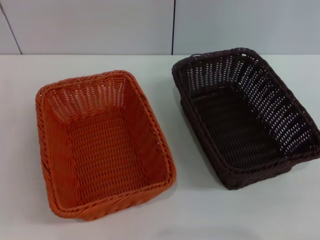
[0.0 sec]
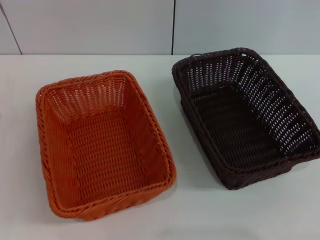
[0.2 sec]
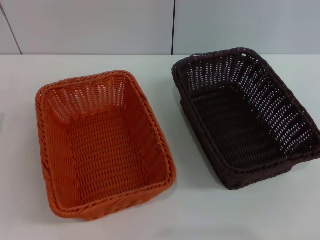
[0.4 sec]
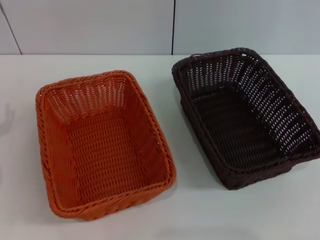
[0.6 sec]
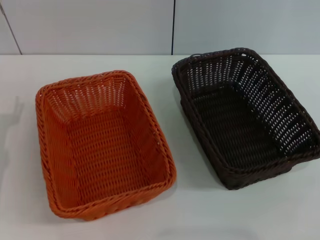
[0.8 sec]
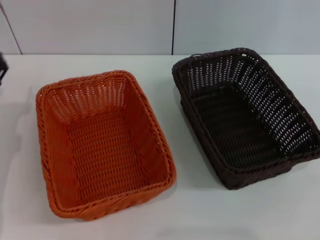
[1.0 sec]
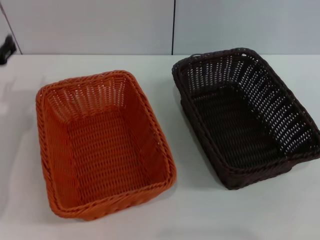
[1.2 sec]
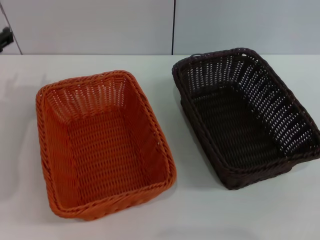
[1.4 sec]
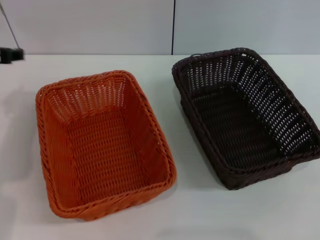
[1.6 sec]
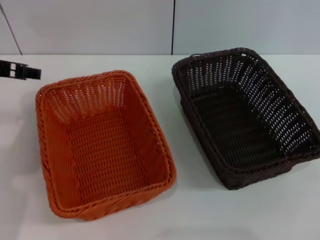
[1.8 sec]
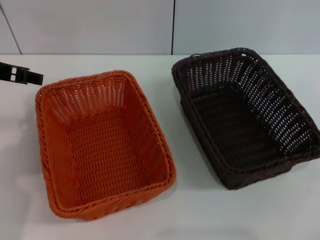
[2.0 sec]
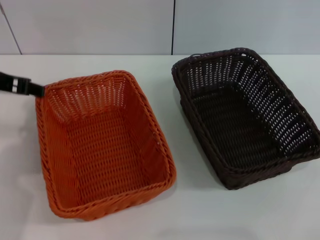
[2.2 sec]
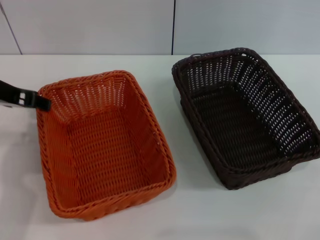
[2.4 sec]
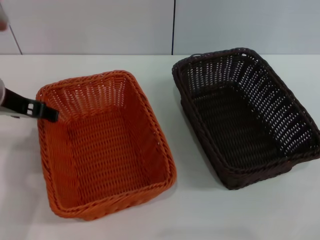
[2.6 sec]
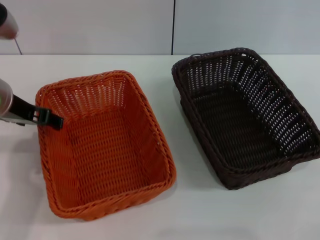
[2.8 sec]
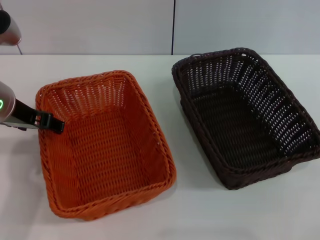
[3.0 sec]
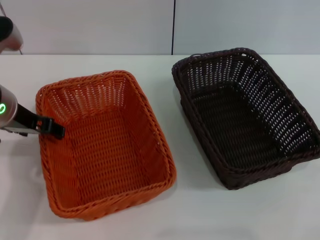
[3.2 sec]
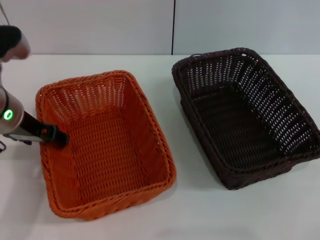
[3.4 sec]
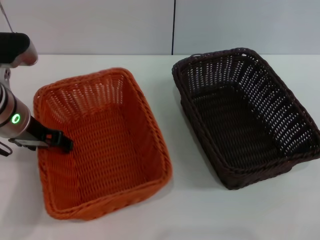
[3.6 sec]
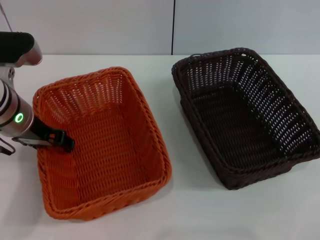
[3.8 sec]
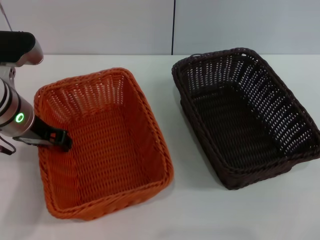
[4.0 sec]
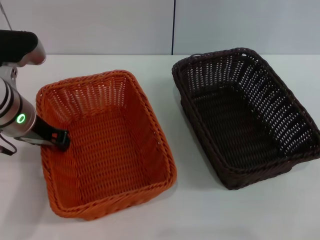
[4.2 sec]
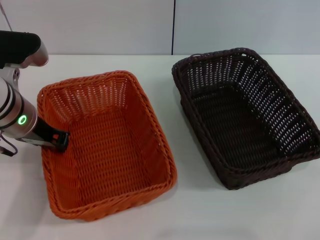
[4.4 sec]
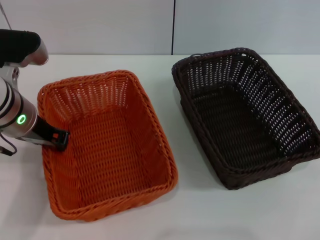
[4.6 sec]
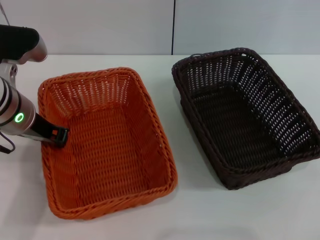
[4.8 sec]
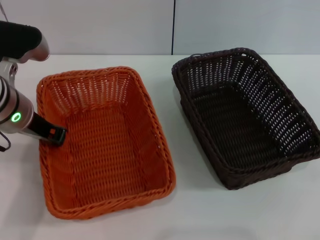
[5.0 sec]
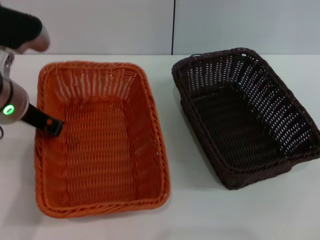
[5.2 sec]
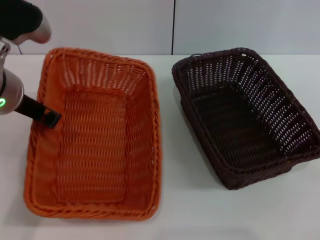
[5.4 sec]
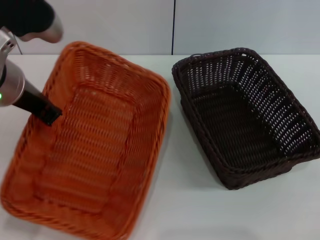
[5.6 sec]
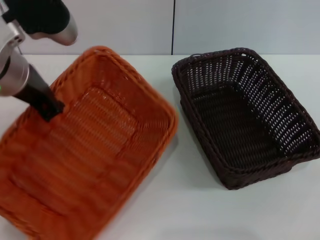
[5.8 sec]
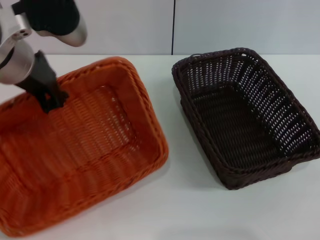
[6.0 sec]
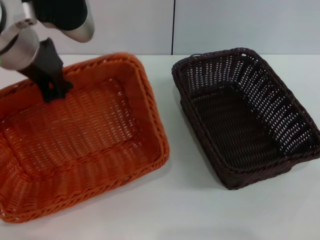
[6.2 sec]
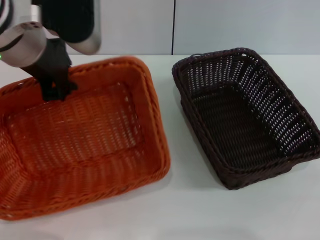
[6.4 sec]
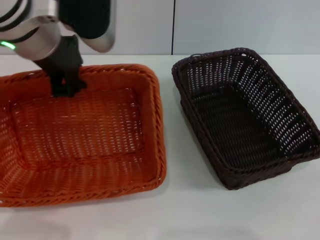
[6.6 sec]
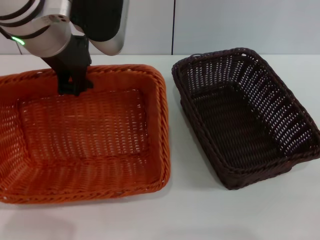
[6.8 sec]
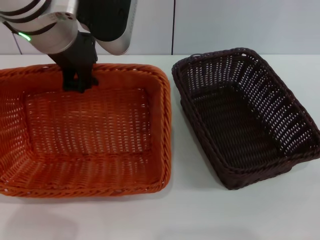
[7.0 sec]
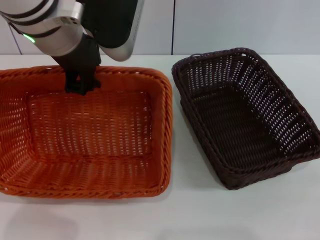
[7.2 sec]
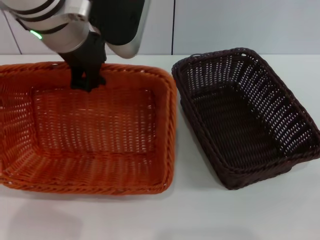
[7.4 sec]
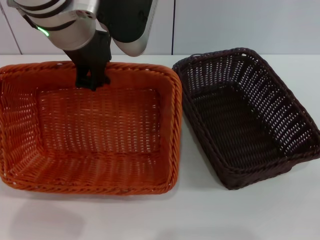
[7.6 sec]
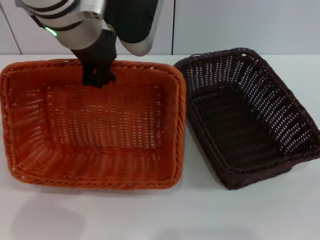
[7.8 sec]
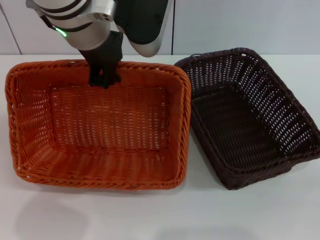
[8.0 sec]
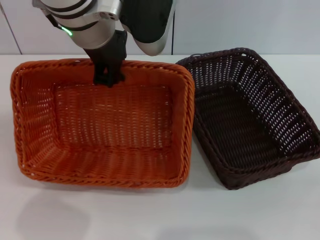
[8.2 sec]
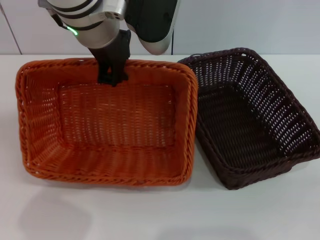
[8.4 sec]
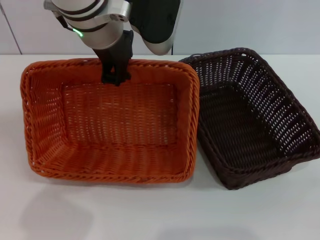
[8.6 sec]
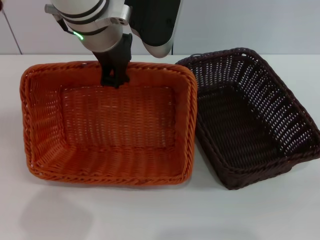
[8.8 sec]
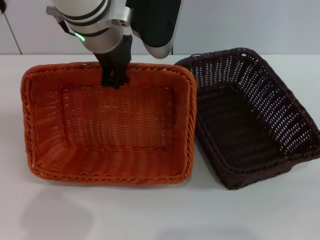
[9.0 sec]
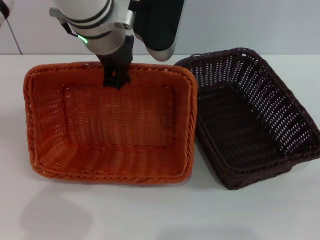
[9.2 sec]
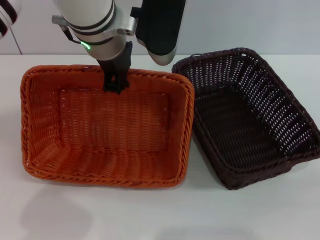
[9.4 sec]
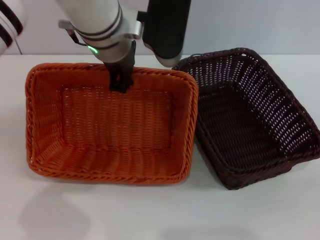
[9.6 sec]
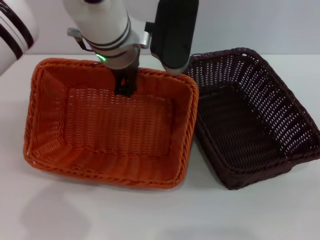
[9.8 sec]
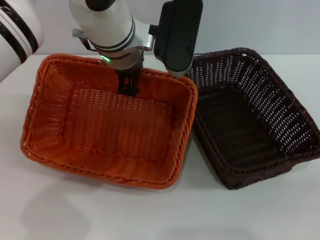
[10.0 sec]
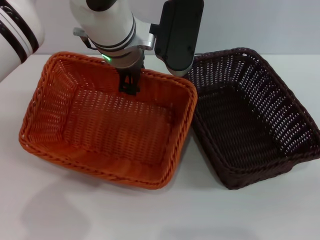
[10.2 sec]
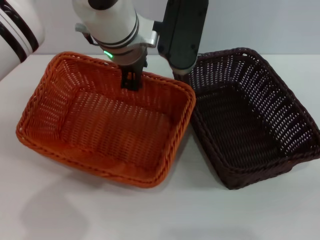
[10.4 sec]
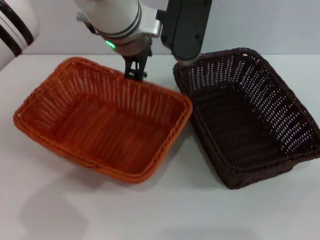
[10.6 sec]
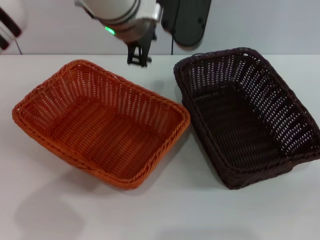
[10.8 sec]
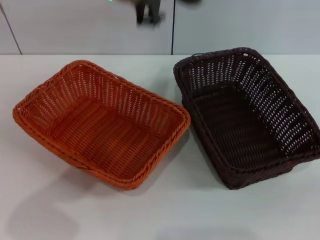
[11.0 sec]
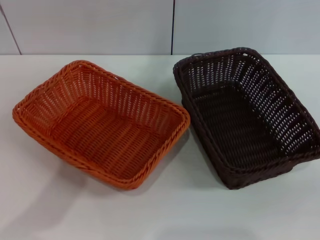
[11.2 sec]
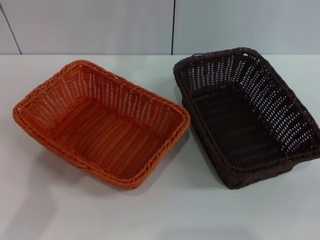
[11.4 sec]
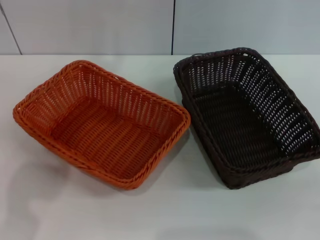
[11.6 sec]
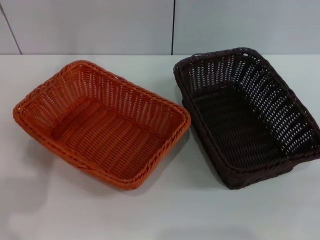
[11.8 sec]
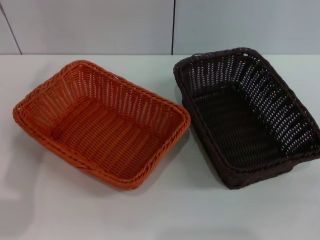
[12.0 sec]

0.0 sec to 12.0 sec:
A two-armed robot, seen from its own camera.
Step, 0.0 sec to 5.8 sec: Pick up the light basket with the left gripper.
Step, 6.2 sec to 10.6 sec: Place the light basket in the center of view with the left gripper.
1.6 sec to 3.0 sec: The left gripper is displaced to the right by approximately 5 cm.
3.0 sec to 4.4 sec: The left gripper closes.
4.4 sec to 6.0 sec: The left gripper travels upward by roughly 10 cm, and closes.
6.0 sec to 7.6 sec: The left gripper moves to the right, roughly 5 cm.
9.0 sec to 10.4 sec: The left gripper opens.
10.4 sec to 12.0 sec: The left gripper moves to the left and backward, approximately 20 cm.

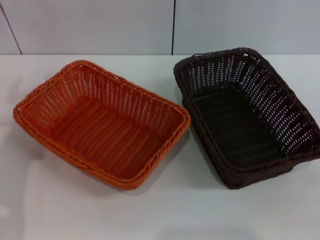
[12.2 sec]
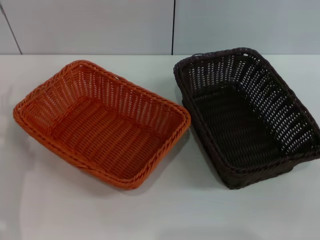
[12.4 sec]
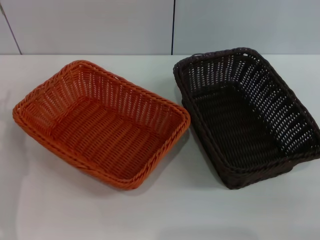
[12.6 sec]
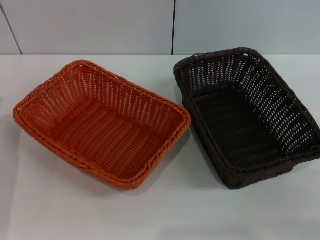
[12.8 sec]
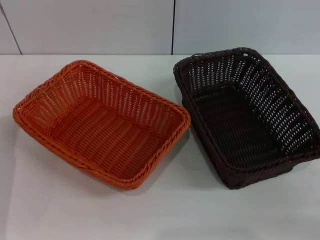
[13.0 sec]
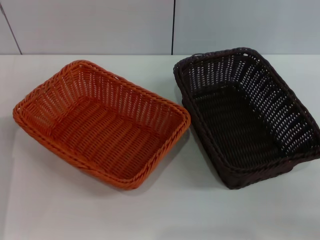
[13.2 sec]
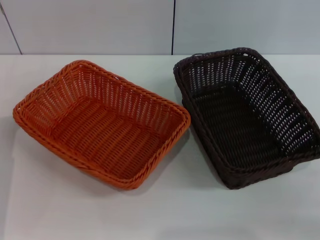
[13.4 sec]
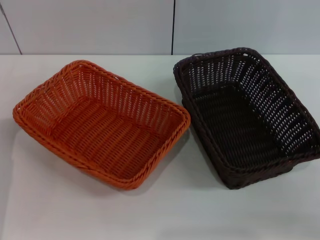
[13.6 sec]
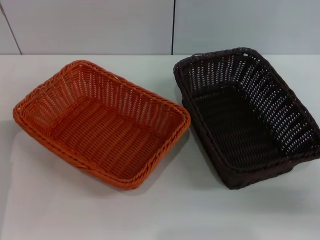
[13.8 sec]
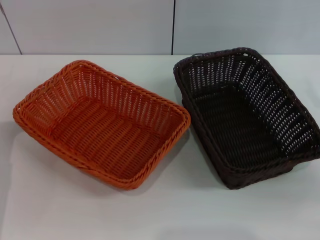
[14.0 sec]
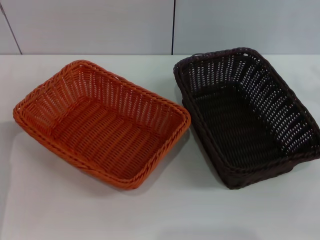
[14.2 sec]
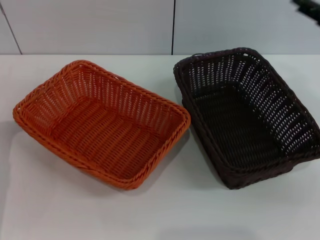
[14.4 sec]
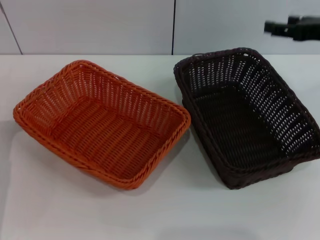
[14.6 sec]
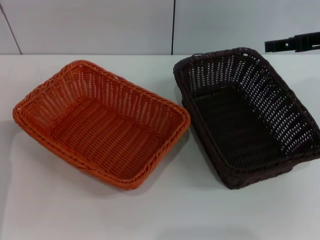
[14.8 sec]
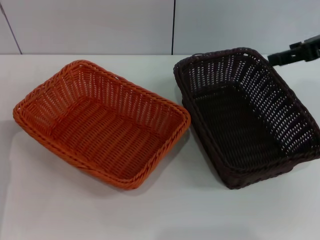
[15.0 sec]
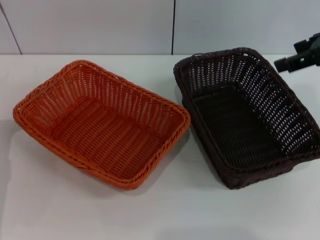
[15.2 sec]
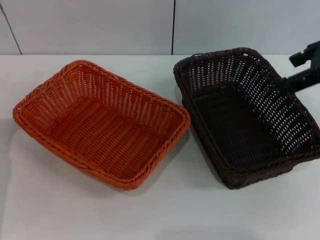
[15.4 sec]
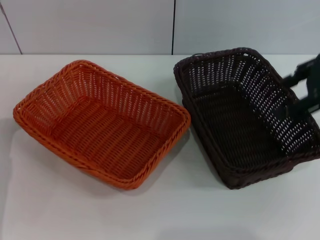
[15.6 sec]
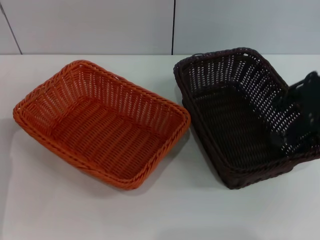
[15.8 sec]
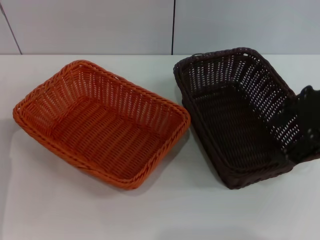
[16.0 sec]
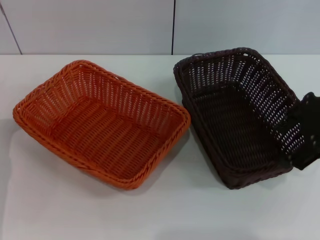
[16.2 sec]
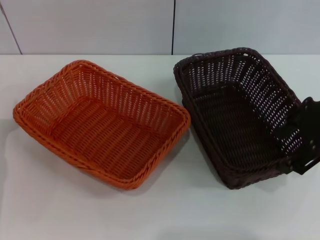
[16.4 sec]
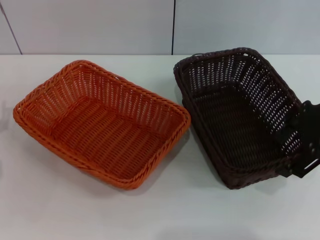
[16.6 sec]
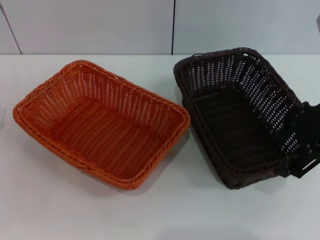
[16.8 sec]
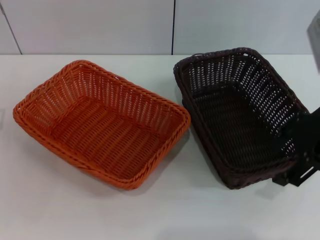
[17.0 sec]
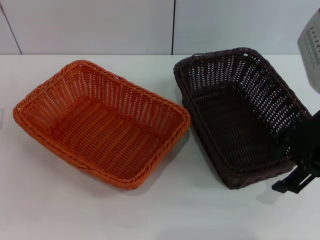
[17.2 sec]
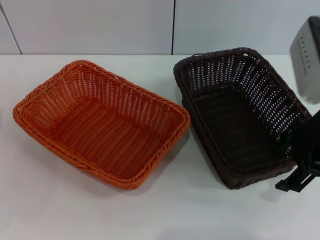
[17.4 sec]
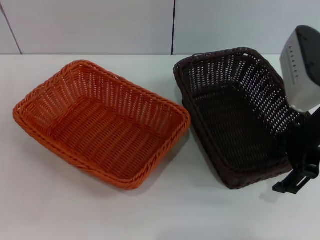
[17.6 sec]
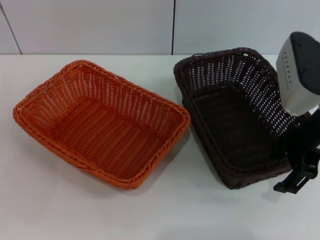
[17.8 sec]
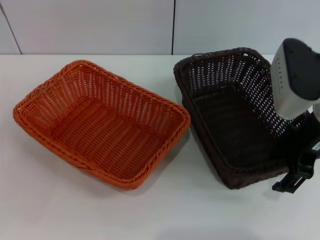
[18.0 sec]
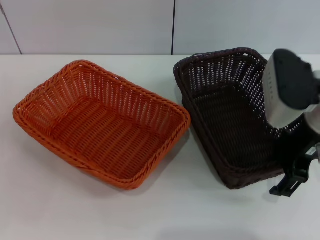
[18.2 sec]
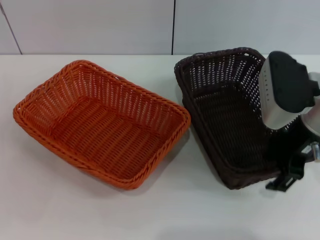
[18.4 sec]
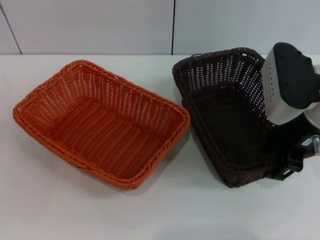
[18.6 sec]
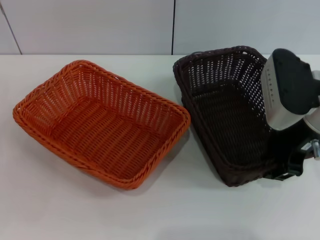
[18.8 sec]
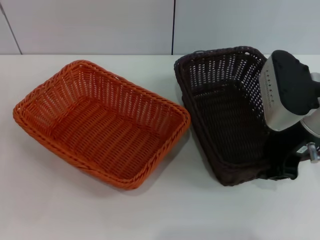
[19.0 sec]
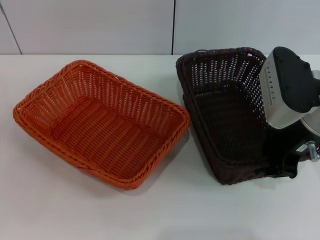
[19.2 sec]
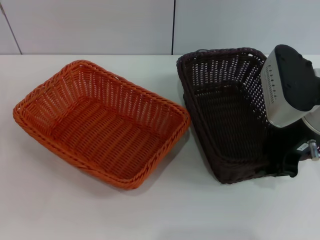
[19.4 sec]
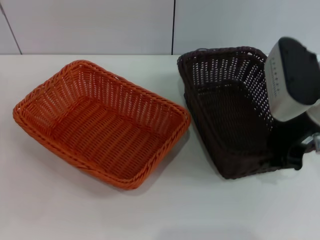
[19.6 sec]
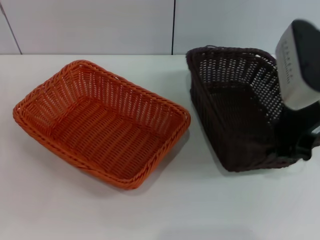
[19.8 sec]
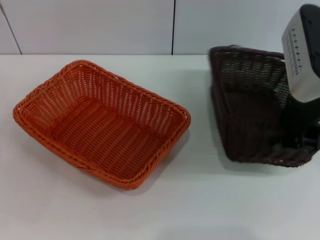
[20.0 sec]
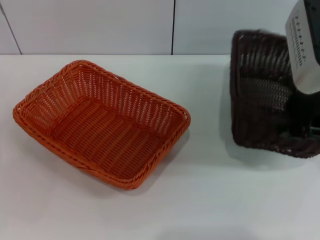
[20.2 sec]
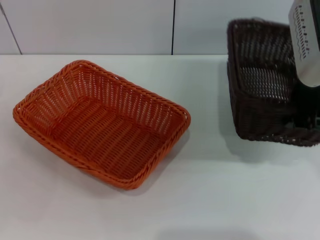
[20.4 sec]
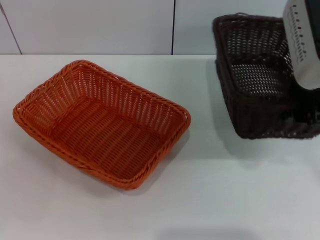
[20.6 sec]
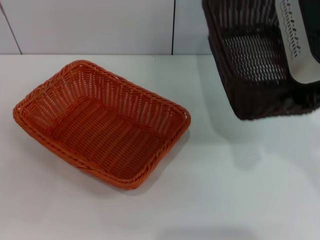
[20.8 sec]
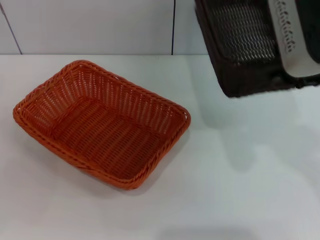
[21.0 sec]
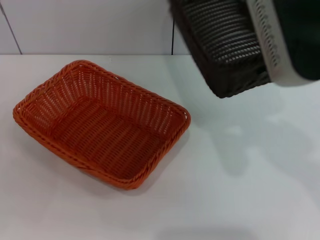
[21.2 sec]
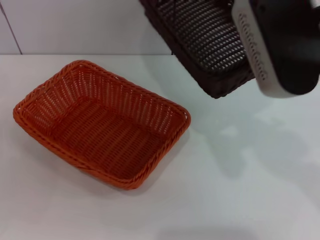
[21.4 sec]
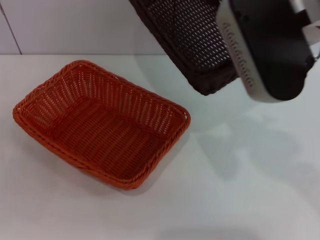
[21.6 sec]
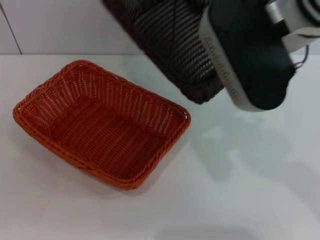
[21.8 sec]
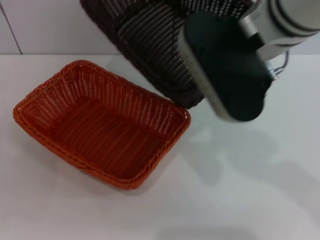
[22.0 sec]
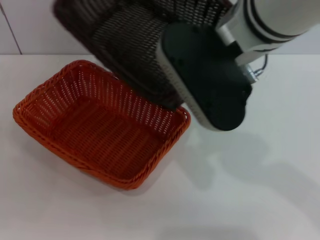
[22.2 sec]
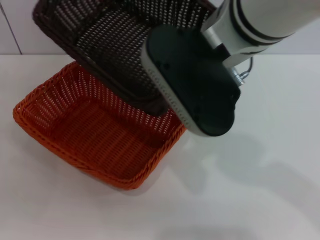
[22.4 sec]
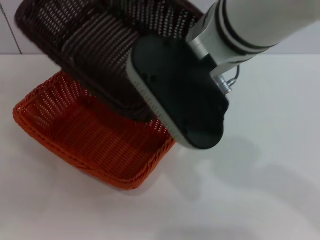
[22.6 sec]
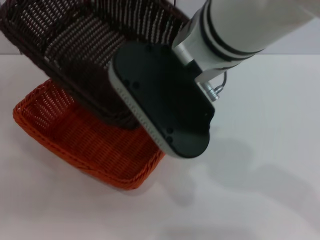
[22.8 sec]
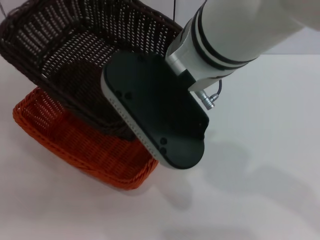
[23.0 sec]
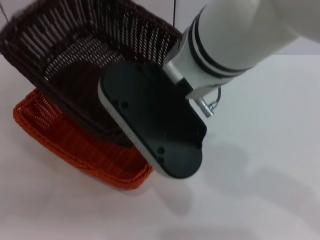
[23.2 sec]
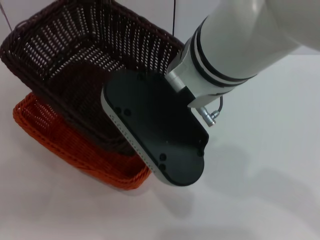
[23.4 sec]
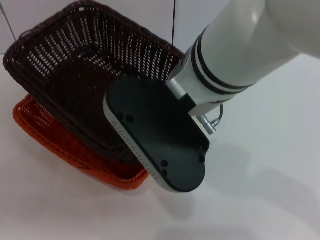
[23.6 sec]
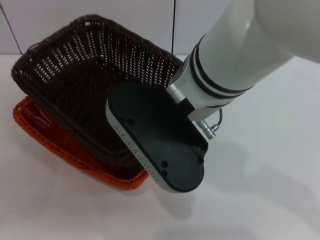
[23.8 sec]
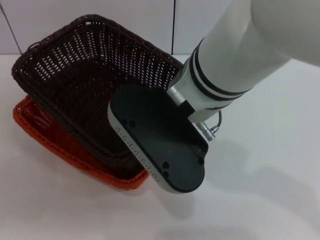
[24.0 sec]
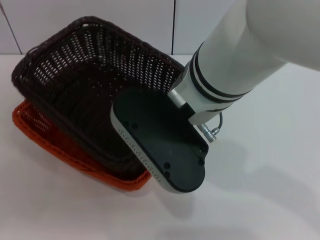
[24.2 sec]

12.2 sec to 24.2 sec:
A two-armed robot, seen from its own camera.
Step, 12.2 sec to 20.2 sec: Pick up the dark basket with the right gripper.
12.2 sec to 13.8 sec: The right gripper heads forward, covering some 10 cm.
13.8 sec to 15.2 sec: The right gripper shifts some 20 cm upward and forward.
15.2 sec to 16.6 sec: The right gripper shifts by roughly 5 cm.
16.6 sec to 18.2 sec: The right gripper is displaced downward by approximately 5 cm.
18.2 sec to 19.8 sec: The right gripper closes.
19.8 sec to 21.2 sec: The right gripper is displaced upward and to the left by approximately 10 cm.
21.2 sec to 22.6 sec: The right gripper goes some 10 cm to the left.
